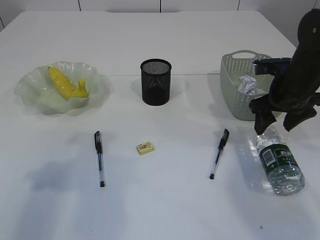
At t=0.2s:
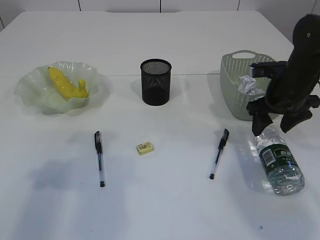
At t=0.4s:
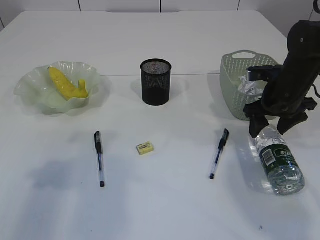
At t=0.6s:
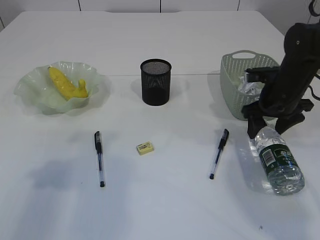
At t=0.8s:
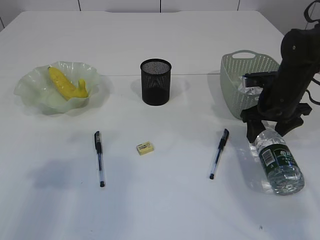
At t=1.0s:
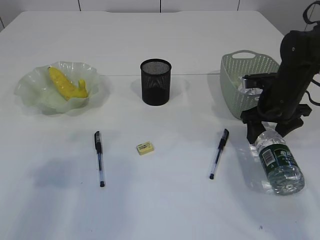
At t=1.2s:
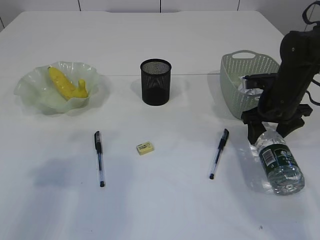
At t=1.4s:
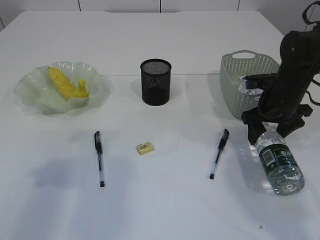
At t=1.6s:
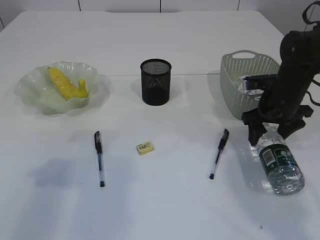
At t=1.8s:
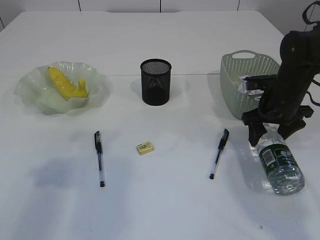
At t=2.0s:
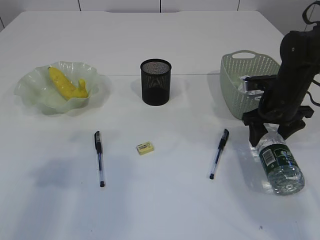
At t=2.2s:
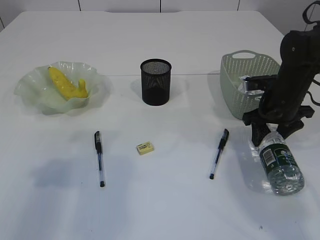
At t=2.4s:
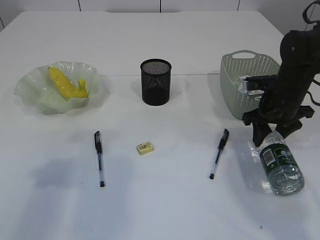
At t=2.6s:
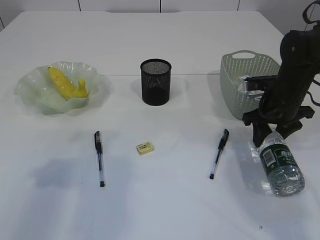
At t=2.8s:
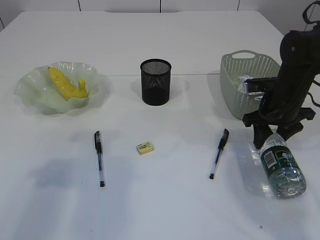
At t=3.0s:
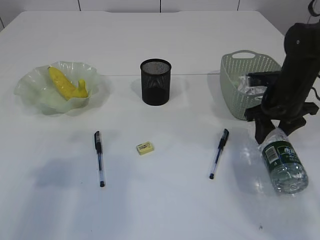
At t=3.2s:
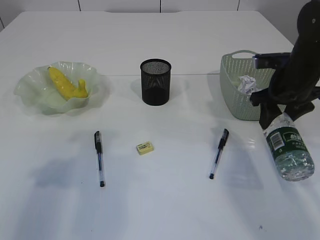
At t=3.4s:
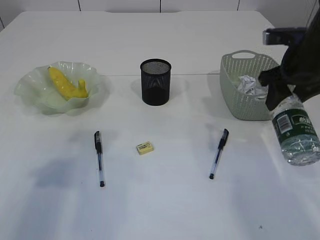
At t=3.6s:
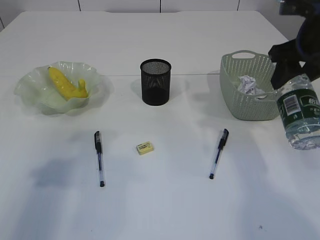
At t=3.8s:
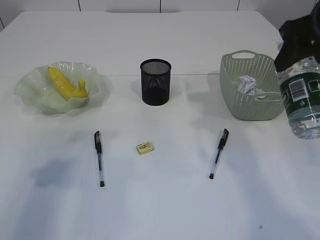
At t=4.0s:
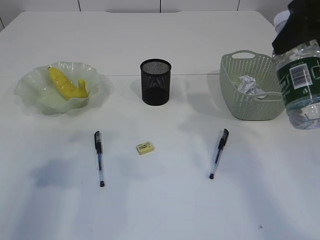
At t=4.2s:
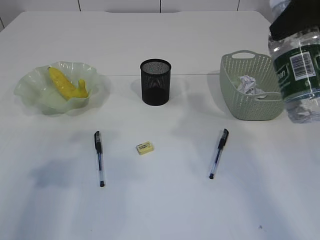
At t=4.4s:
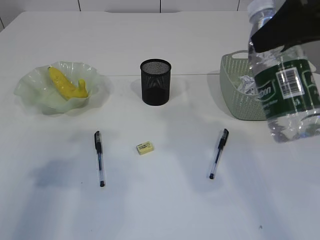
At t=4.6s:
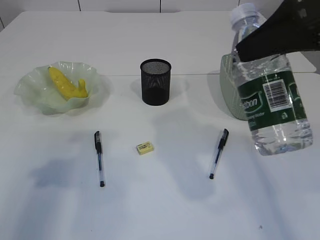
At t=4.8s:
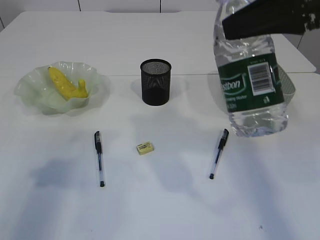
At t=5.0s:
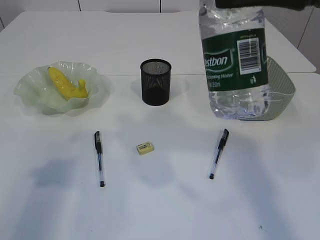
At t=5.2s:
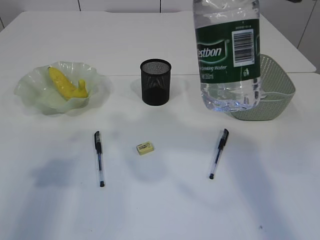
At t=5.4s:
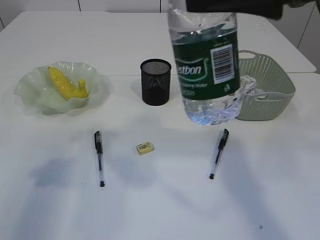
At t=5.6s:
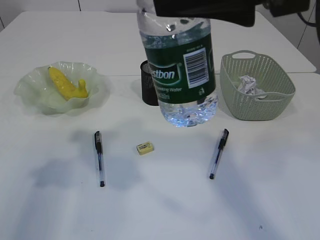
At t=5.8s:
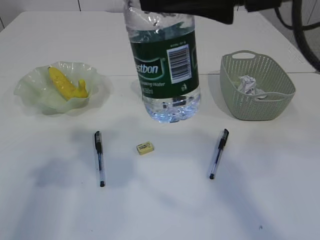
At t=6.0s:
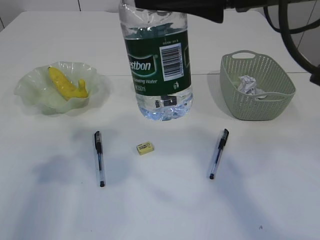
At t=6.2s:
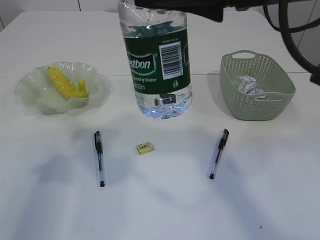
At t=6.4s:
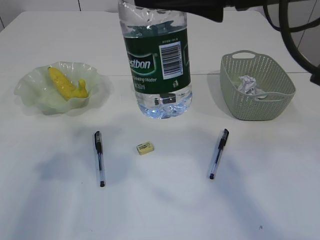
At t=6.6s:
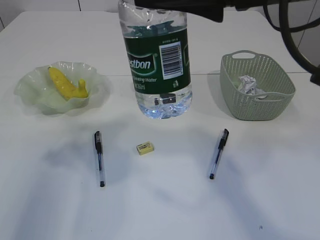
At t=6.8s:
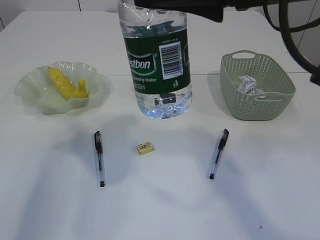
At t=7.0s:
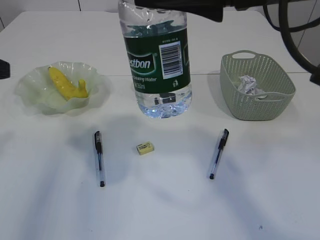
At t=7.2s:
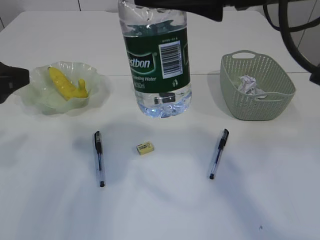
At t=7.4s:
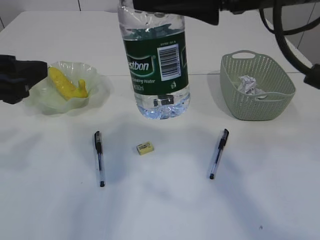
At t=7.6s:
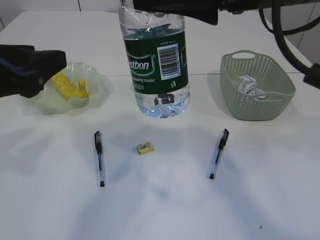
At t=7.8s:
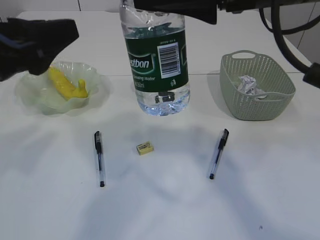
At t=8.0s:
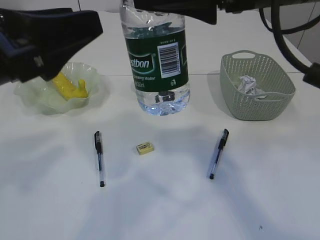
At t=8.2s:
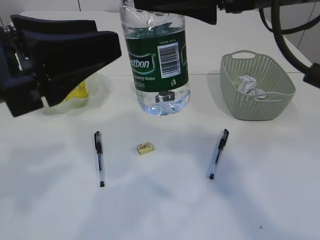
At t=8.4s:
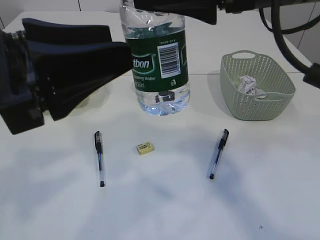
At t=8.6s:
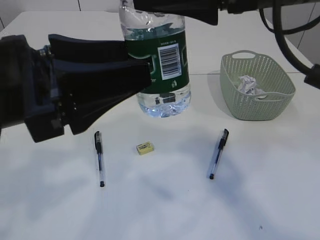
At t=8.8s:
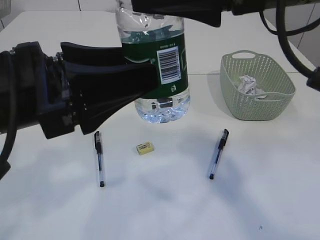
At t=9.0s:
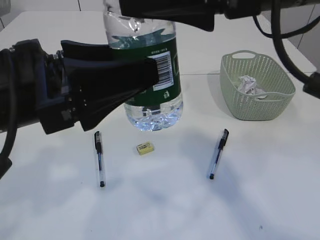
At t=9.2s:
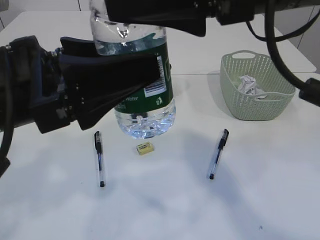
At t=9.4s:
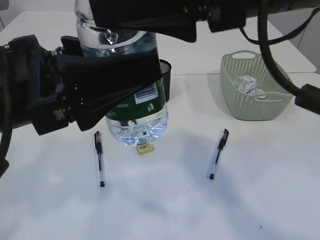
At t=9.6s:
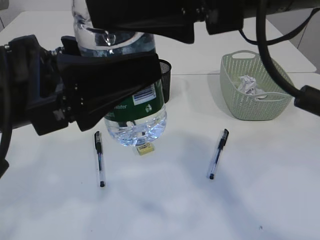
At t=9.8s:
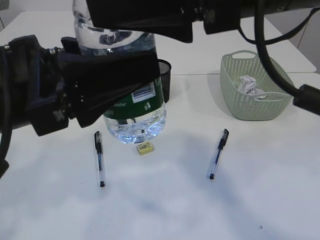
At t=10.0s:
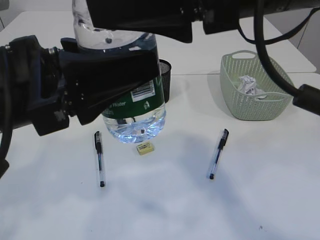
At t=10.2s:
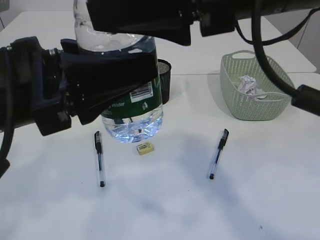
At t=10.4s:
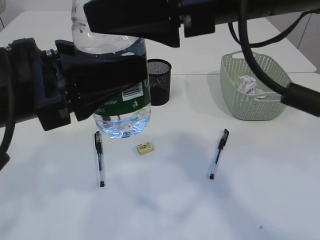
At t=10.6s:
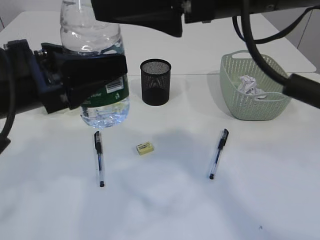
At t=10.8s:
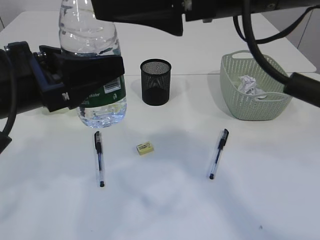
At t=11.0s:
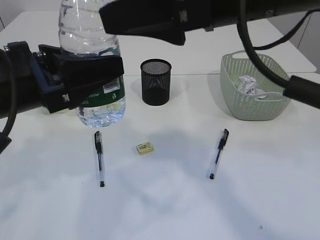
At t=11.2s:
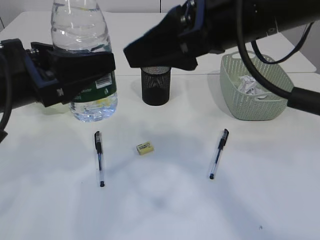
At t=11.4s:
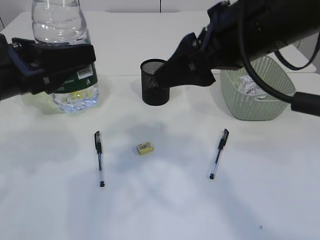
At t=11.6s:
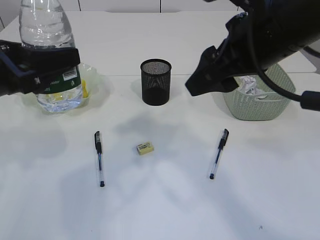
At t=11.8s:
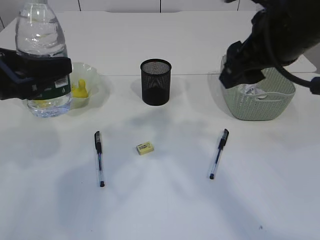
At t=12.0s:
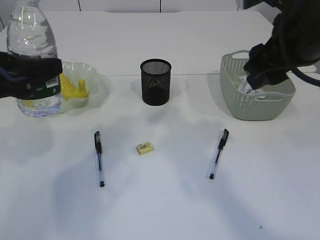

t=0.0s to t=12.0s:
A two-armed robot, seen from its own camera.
Step, t=0.0s to t=3.2s: Pick up the bottle with the right arm.
Step, t=3.4s to t=11.0s: transfer the bottle to the left arm.
t=0.0s to t=1.6s: The grippers make only small movements.
t=1.6s to t=3.0s: Both grippers stay put.
t=3.0s to t=4.4s: The right gripper moves upward and backward, approximately 25 cm.
t=4.4s to t=6.0s: The right gripper moves to the left, about 10 cm.
t=6.0s to t=7.6s: The left gripper heads to the right, covering some 10 cm.
t=7.6s to t=9.0s: The left gripper goes some 5 cm to the right, and opens.
t=9.0s to t=10.4s: The left gripper closes its fingers.
t=10.4s to t=12.0s: The left gripper moves to the left and forward, about 10 cm. Meanwhile the right gripper goes about 10 cm to the right.

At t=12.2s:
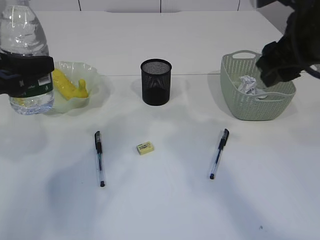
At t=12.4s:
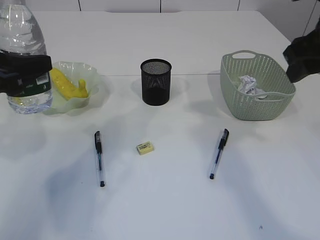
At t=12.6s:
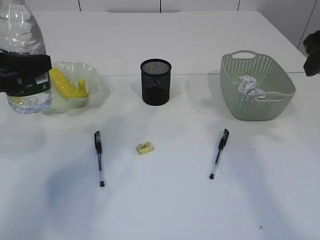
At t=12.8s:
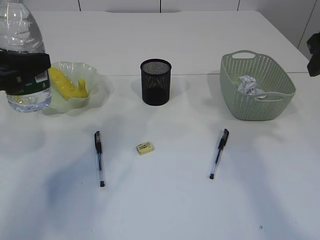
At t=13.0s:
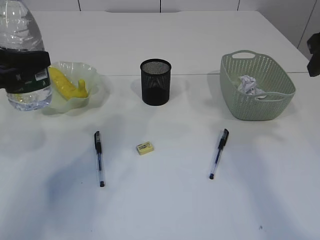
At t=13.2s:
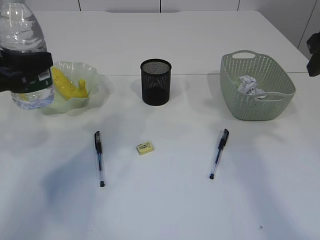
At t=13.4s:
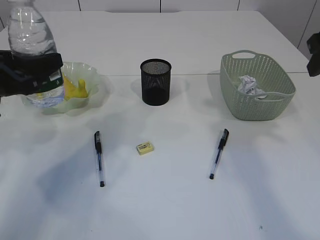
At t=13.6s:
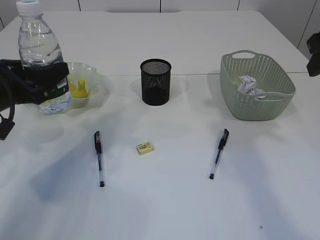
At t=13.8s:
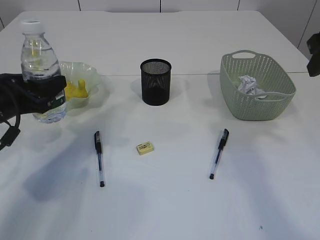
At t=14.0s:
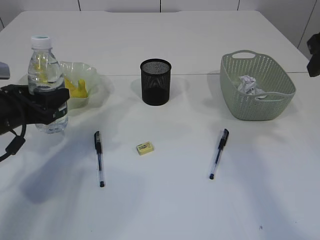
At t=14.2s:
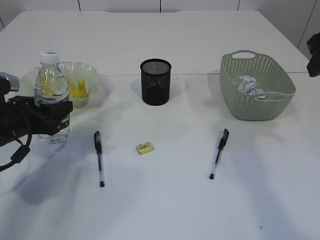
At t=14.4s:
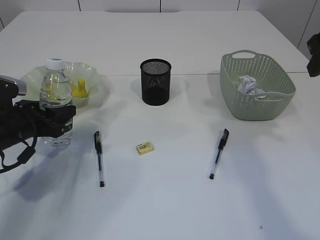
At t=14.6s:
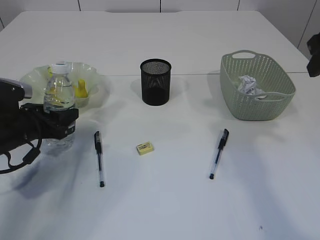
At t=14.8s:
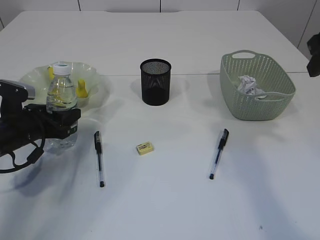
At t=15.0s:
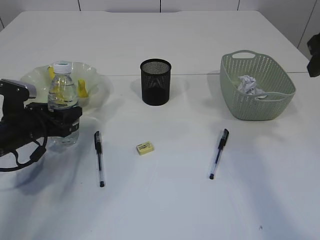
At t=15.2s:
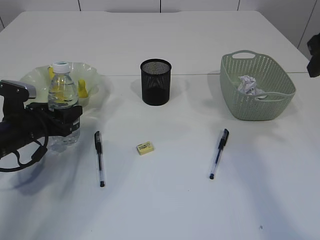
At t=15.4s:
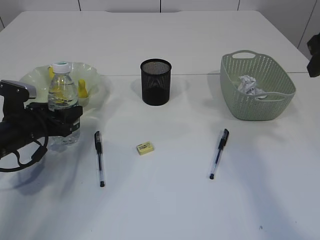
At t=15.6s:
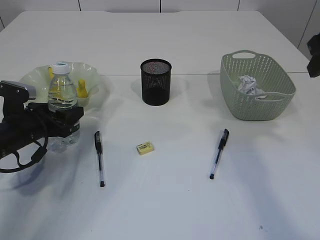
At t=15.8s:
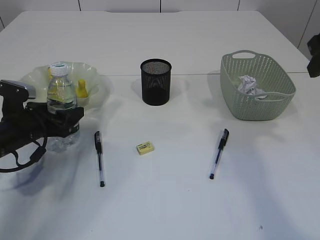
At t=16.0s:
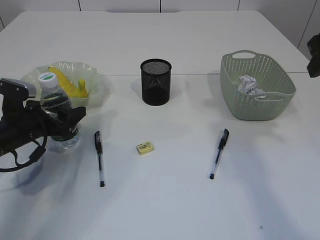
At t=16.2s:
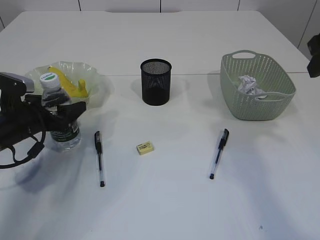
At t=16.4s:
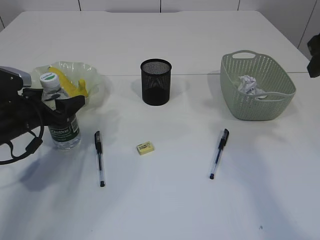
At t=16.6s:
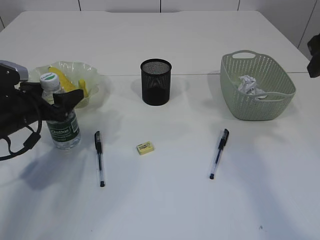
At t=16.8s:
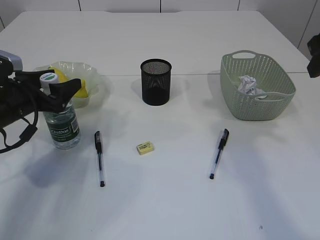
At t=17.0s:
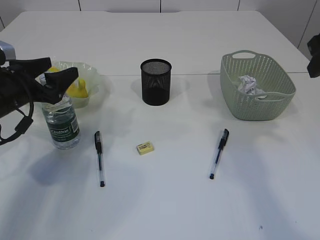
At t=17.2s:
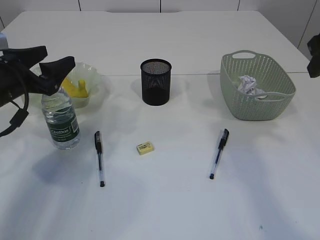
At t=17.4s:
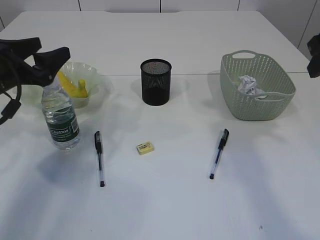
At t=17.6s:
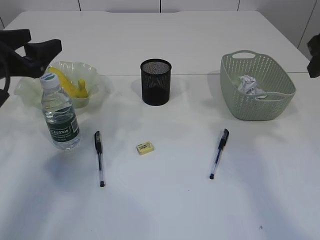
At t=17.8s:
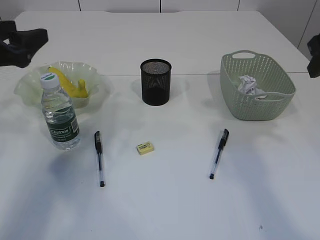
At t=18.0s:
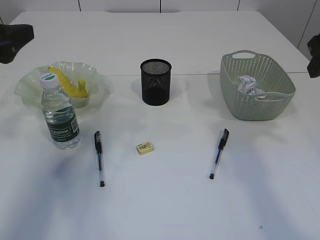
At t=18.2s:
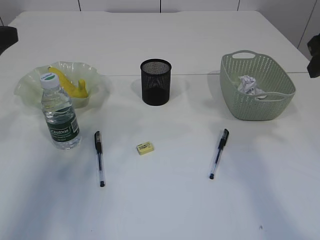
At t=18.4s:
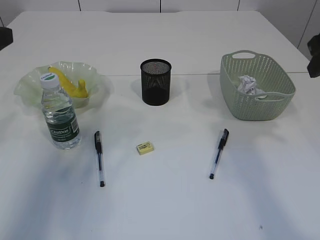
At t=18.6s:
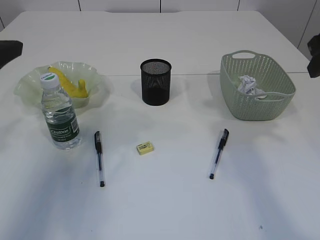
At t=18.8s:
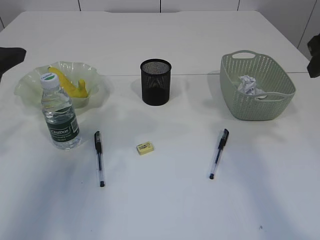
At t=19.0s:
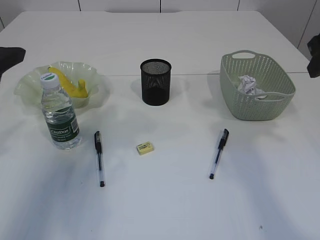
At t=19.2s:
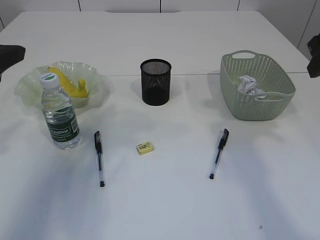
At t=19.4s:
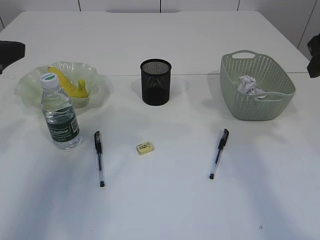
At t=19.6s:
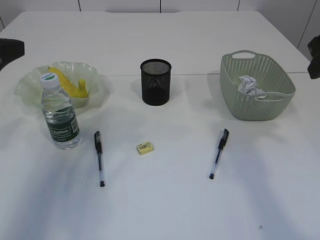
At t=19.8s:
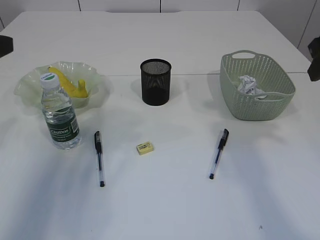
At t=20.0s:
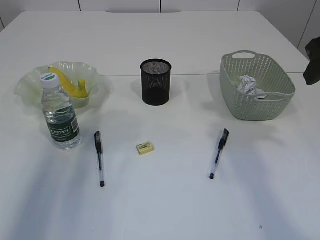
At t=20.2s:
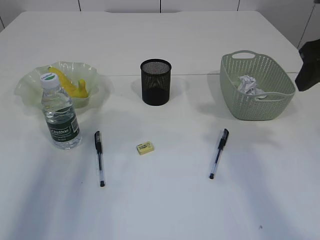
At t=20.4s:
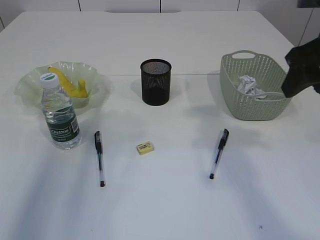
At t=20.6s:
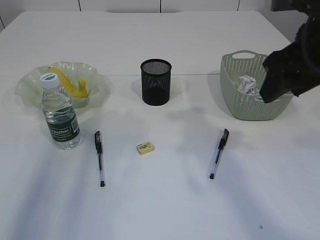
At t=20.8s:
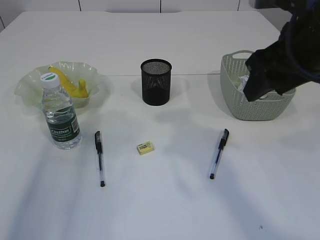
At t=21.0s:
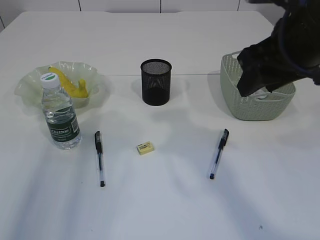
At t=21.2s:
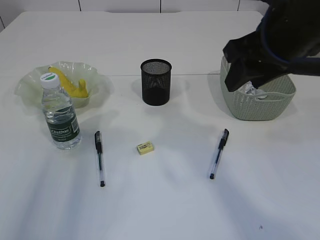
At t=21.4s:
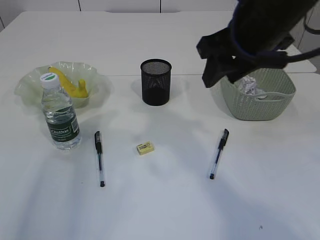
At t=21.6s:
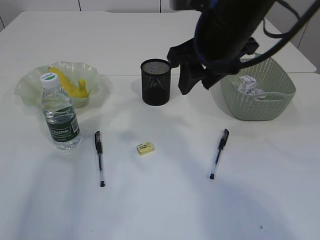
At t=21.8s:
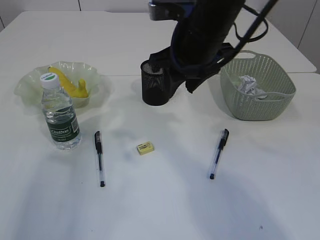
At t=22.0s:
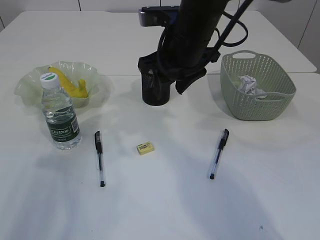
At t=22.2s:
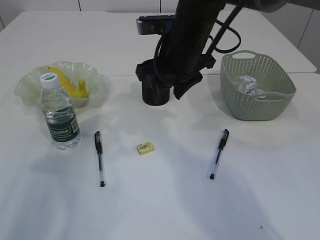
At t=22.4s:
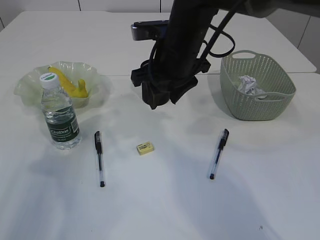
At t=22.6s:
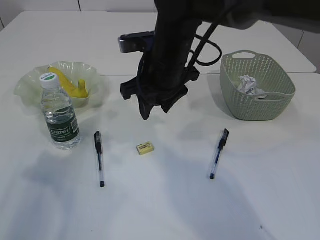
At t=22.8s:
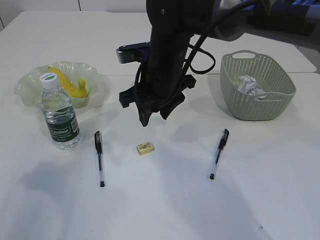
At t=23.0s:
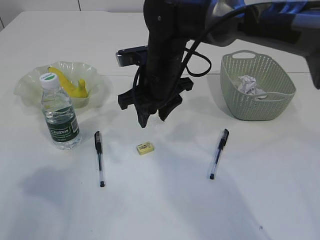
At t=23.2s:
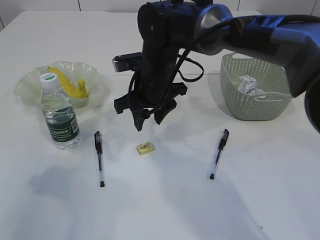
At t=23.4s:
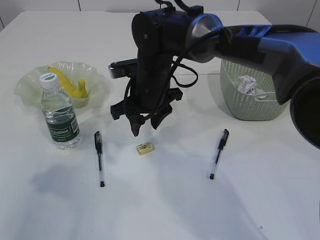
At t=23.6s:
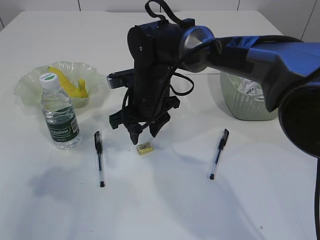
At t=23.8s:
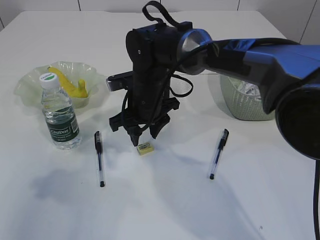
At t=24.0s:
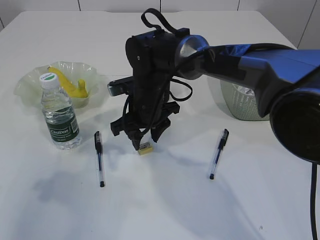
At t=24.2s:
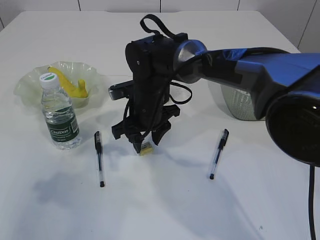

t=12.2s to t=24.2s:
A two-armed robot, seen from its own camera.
Step, t=12.2s to t=17.2s: Place the bottle.
t=12.2s to t=13.8s: The right gripper goes roughly 10 cm to the right, while the left gripper moves downward and forward, some 10 cm.
t=13.8s to t=15.2s: The left gripper travels downward by some 10 cm.
t=15.2s to t=16.6s: The left gripper opens its fingers.
t=16.6s to t=18.2s: The left gripper travels upward and backward by roughly 20 cm.
t=19.8s to t=21.2s: The right gripper goes roughly 10 cm to the left.
t=21.2s to t=22.6s: The right gripper heads to the left, forward and downward, covering roughly 20 cm.
t=22.6s to t=24.2s: The right gripper shifts about 10 cm downward.
